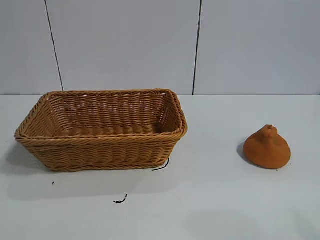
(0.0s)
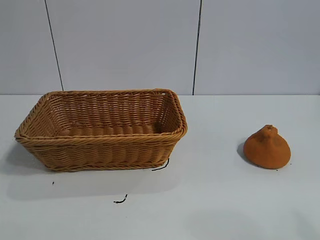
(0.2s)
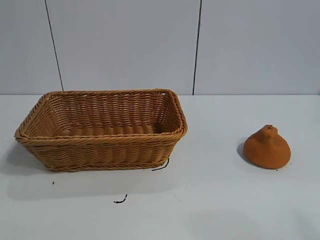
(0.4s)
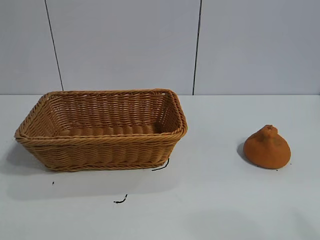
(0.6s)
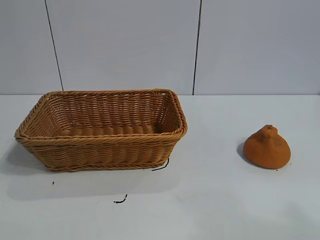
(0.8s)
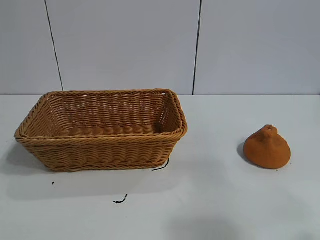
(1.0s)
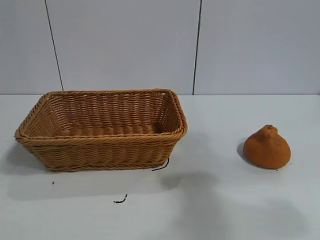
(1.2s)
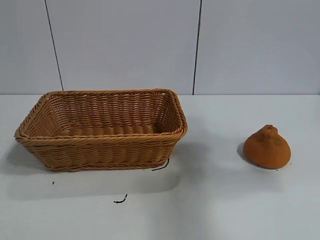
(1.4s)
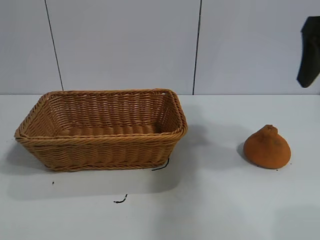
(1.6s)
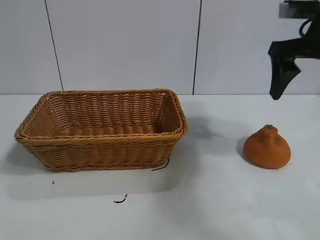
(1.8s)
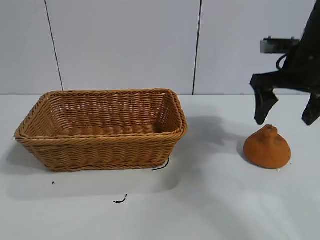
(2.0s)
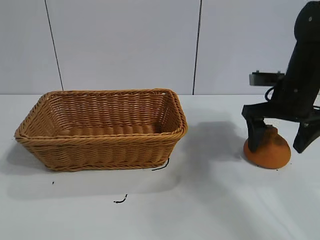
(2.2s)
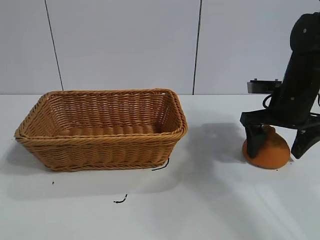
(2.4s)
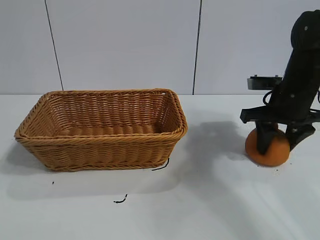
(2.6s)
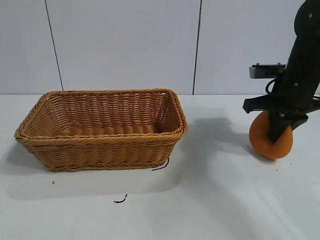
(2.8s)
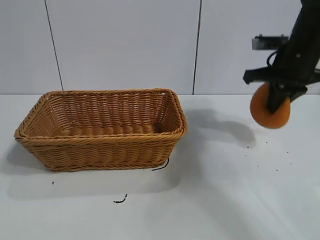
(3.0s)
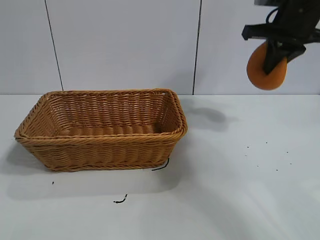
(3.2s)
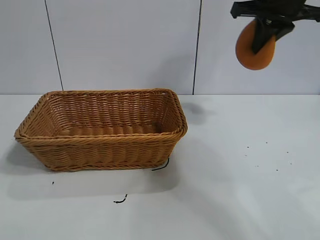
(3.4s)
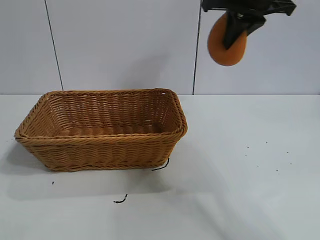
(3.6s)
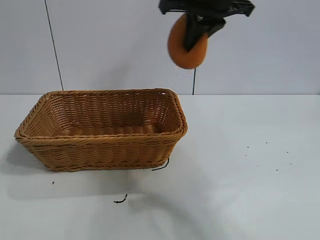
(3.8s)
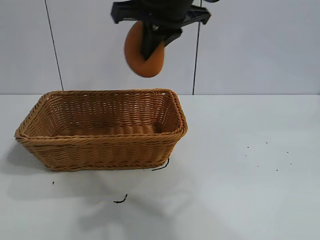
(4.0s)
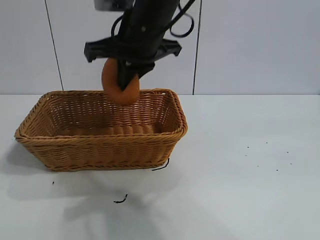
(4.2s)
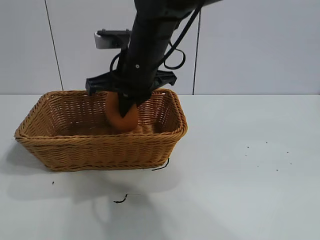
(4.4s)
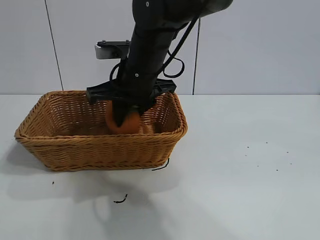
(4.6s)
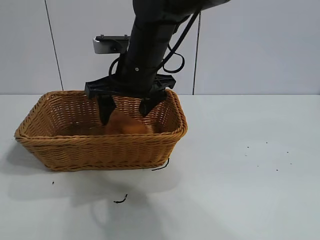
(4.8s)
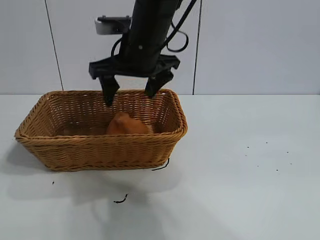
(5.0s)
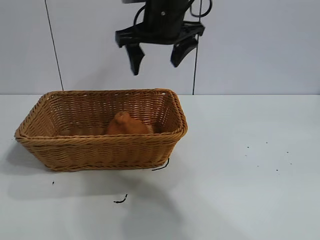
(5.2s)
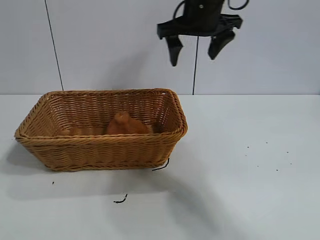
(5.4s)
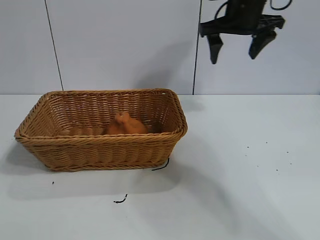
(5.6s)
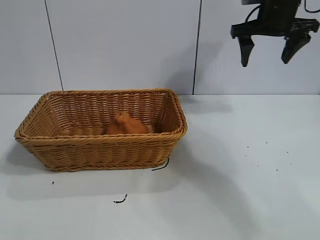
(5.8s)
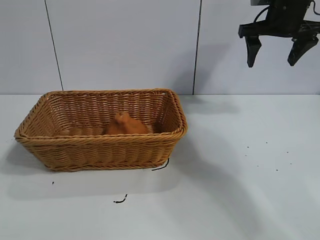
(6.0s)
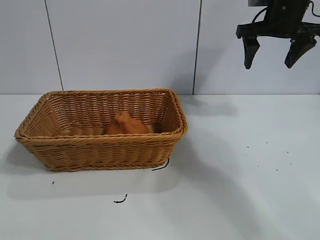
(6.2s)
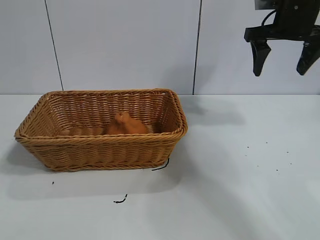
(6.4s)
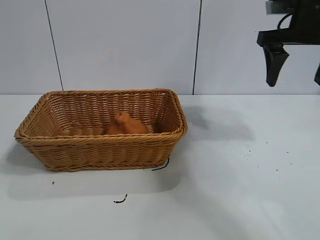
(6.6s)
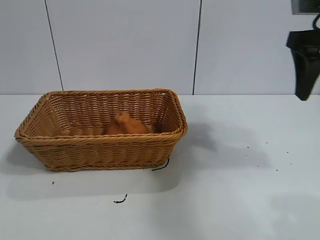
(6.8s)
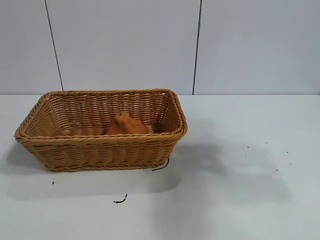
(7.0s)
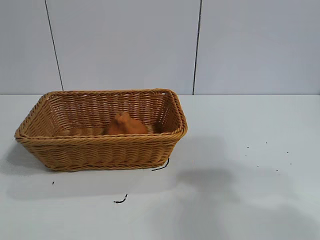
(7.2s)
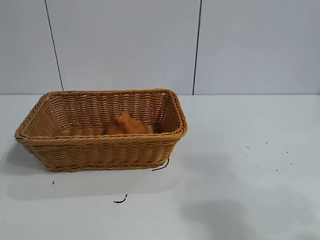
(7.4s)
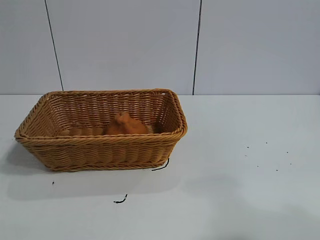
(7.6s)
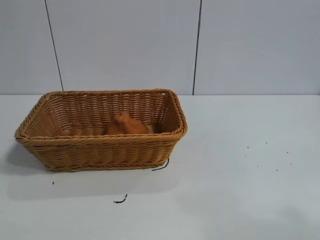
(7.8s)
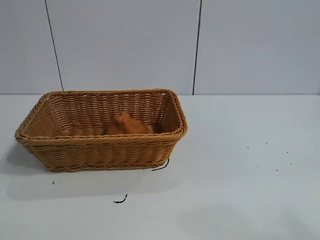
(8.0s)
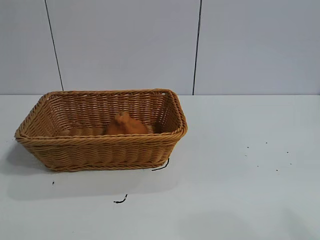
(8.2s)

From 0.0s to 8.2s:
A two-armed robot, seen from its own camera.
Task of the whole recording: pick up the orange and put it into the basket.
Step, from 0.8s to 2.8s: Grasp the orange with right gripper.
Step, from 3.0s to 4.8s: Place the orange in the basket with right gripper.

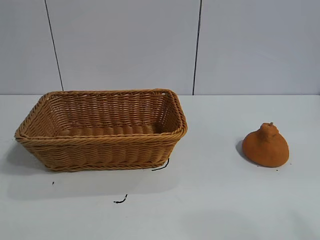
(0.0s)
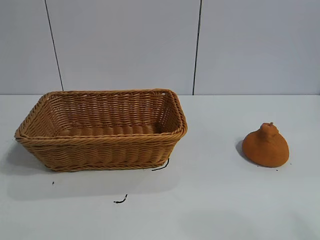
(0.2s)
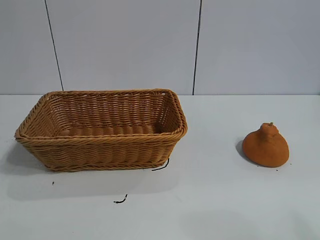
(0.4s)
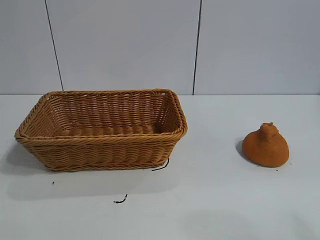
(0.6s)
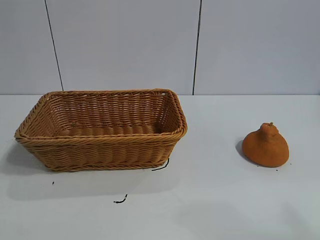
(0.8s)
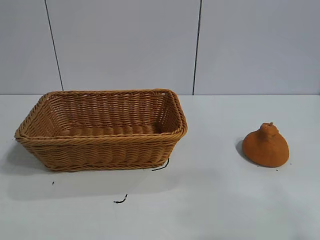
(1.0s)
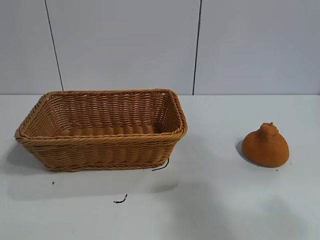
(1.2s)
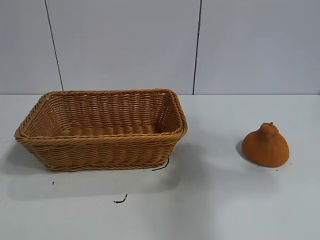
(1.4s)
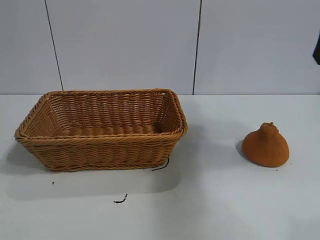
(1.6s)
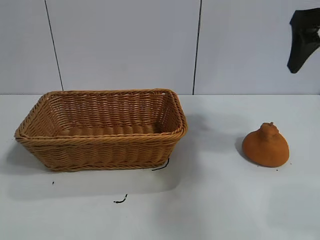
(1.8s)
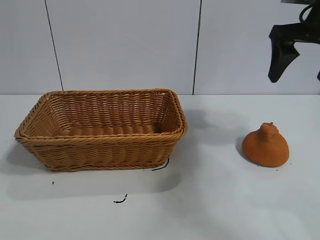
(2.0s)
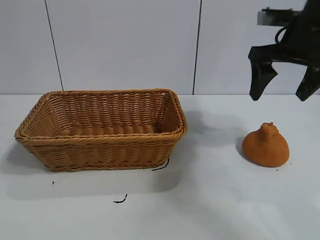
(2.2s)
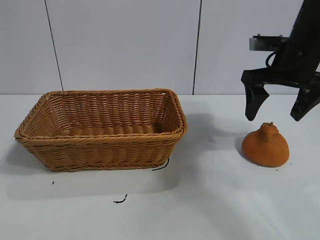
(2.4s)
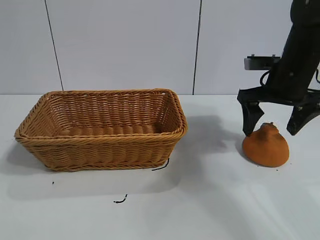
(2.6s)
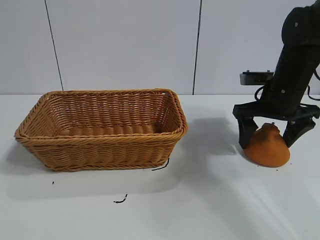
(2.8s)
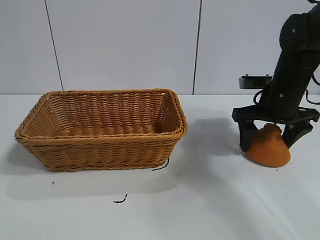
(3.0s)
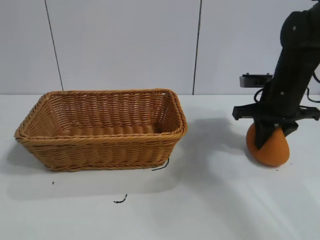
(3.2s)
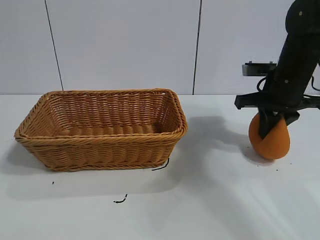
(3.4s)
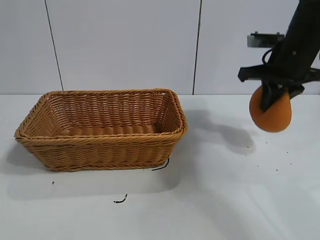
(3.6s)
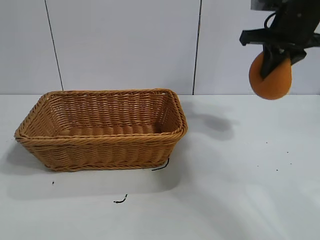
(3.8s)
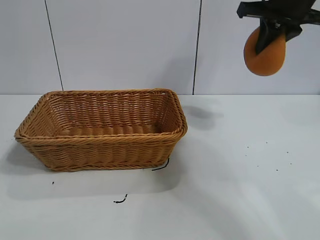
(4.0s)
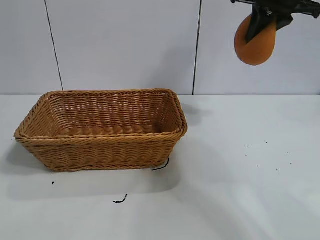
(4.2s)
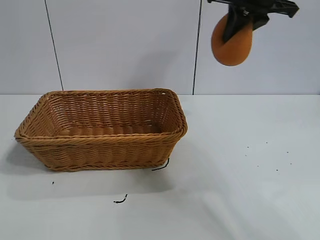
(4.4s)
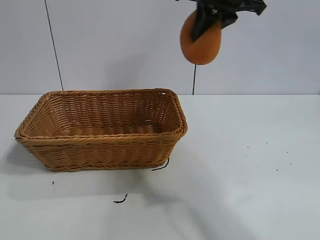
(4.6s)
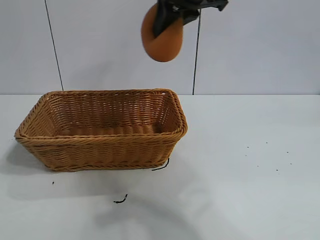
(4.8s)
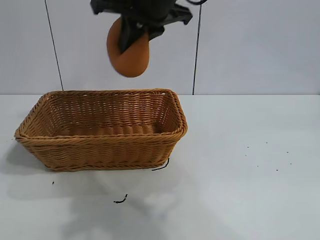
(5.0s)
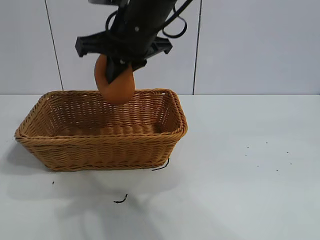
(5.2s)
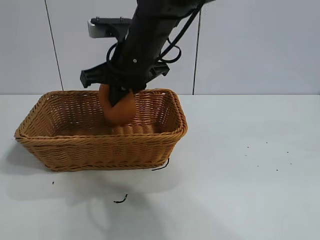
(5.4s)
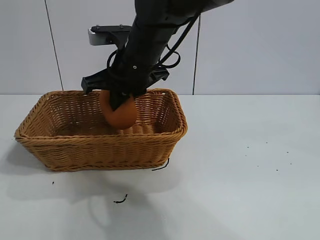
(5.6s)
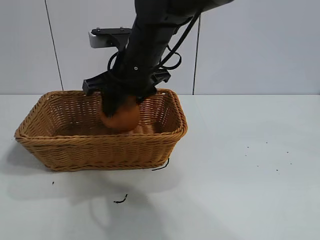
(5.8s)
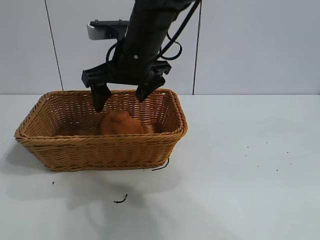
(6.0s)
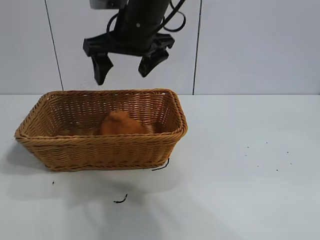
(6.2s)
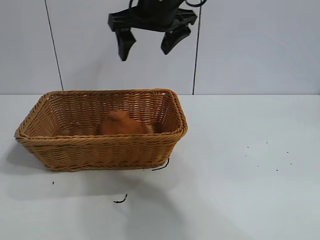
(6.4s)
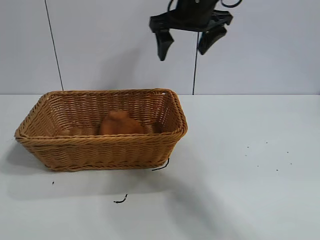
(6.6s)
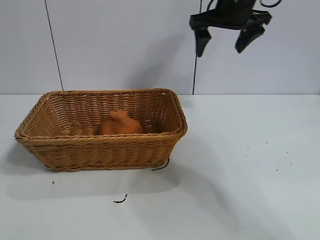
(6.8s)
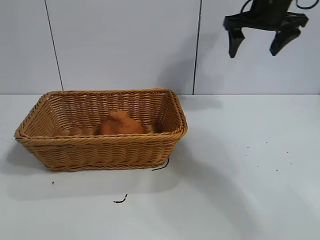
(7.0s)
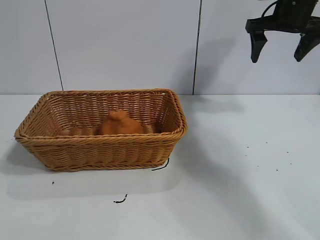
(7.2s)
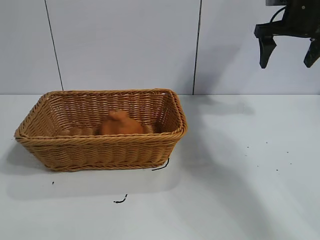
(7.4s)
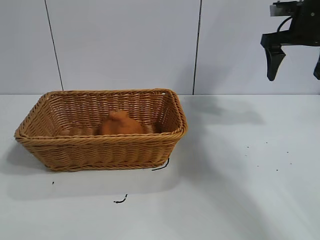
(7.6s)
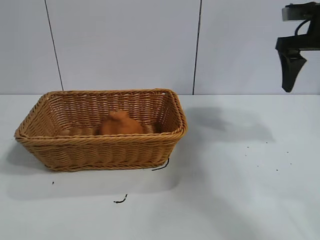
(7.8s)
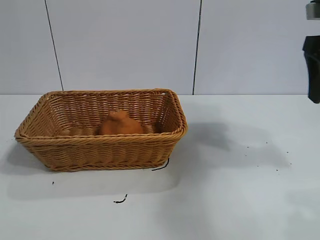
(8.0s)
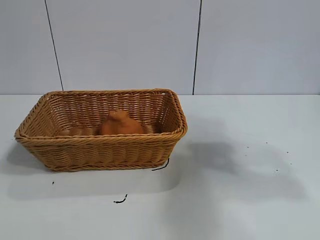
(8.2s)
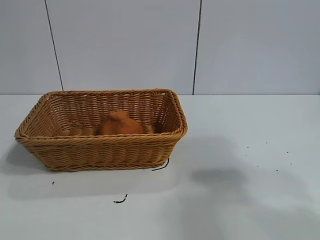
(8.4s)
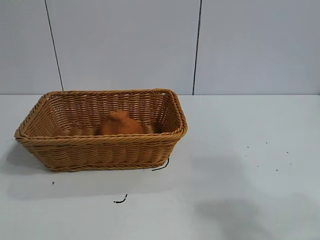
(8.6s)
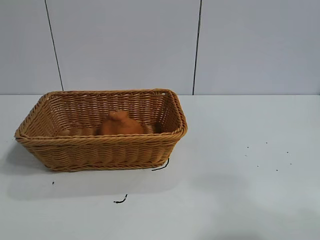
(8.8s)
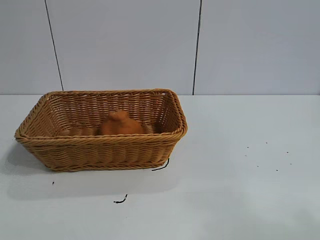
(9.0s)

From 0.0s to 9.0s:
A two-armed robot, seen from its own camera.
Task of the whole recording: pick up the orange and put it into the basket.
Step, from 0.6s to 3.2s: Grasp the orange with right gripper.
Step, from 3.6s to 5.8s: Place the orange in the basket with right gripper.
